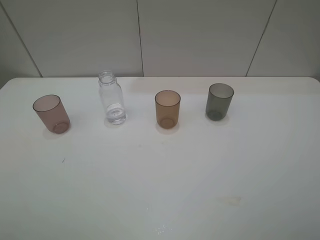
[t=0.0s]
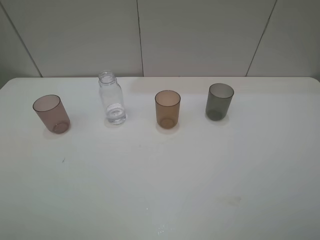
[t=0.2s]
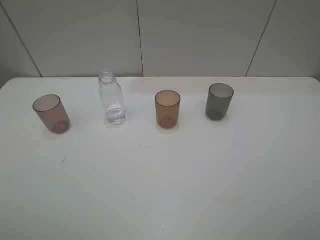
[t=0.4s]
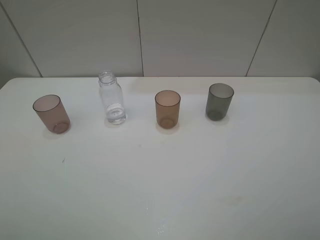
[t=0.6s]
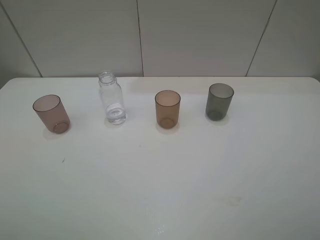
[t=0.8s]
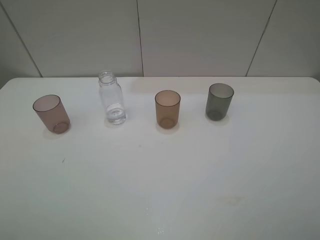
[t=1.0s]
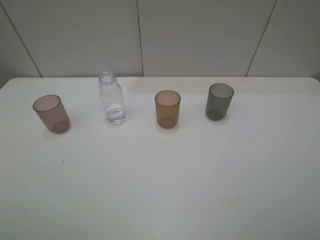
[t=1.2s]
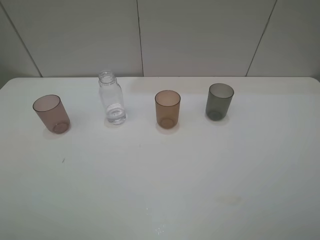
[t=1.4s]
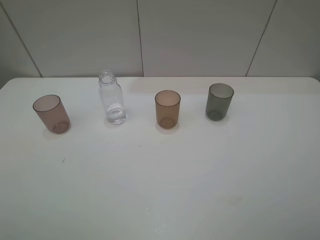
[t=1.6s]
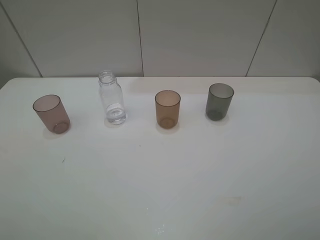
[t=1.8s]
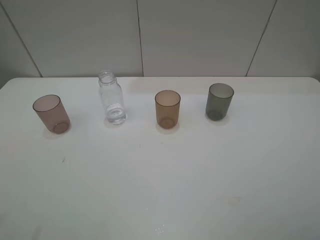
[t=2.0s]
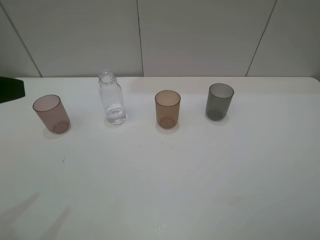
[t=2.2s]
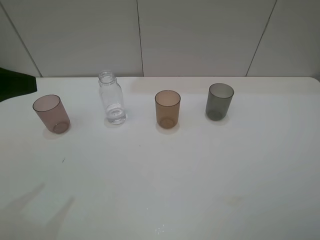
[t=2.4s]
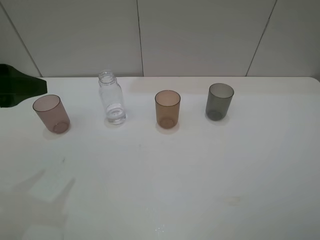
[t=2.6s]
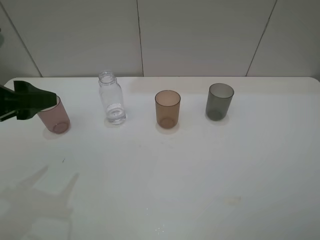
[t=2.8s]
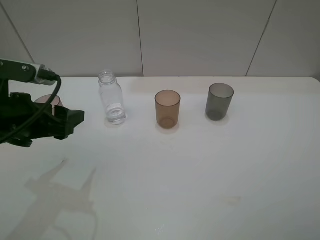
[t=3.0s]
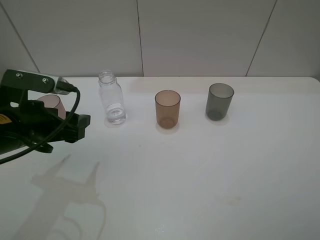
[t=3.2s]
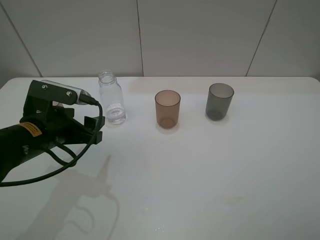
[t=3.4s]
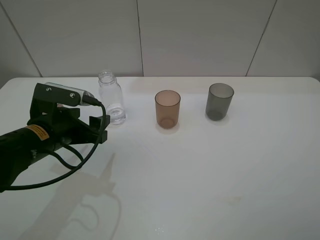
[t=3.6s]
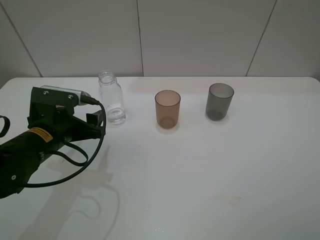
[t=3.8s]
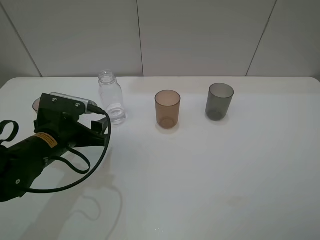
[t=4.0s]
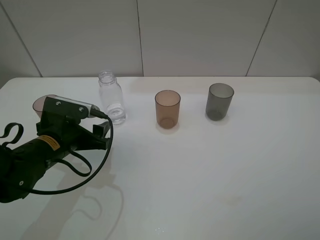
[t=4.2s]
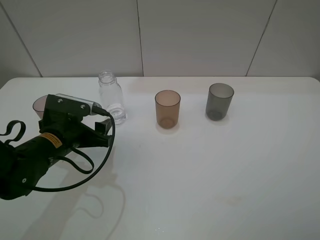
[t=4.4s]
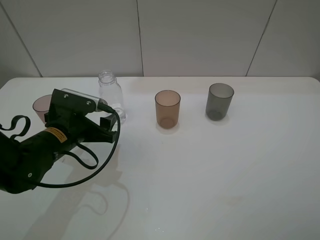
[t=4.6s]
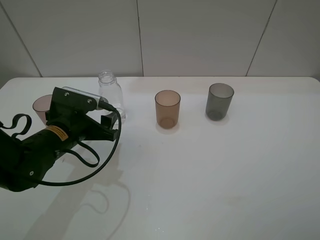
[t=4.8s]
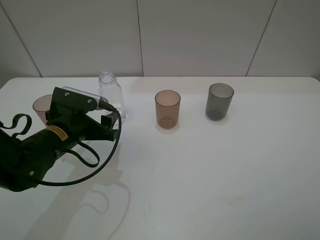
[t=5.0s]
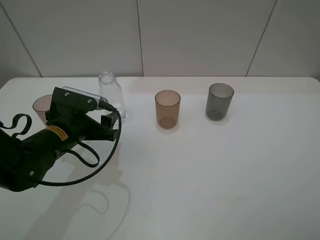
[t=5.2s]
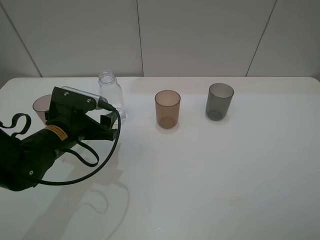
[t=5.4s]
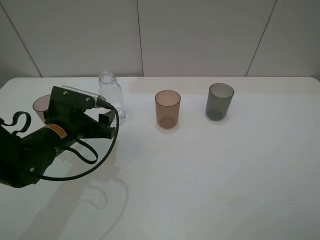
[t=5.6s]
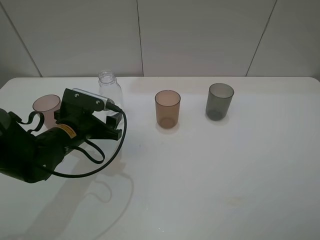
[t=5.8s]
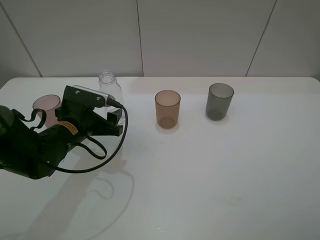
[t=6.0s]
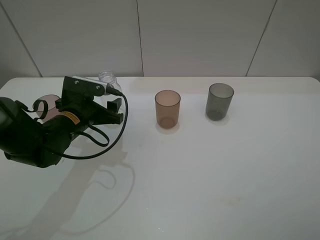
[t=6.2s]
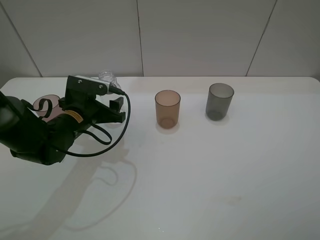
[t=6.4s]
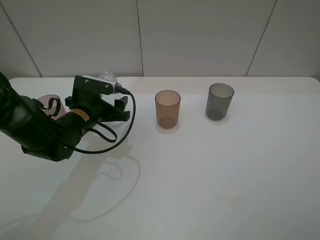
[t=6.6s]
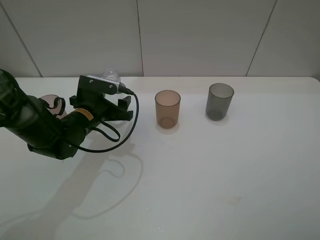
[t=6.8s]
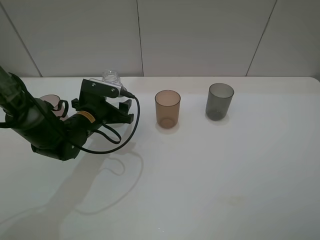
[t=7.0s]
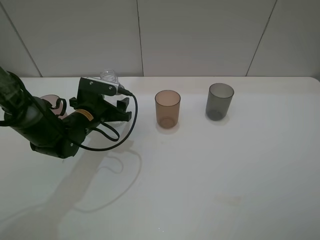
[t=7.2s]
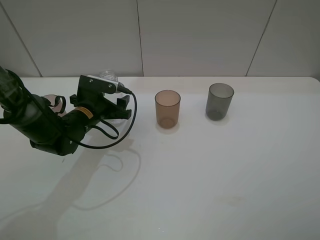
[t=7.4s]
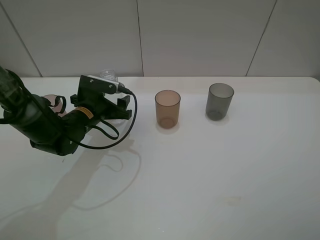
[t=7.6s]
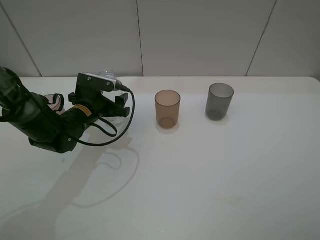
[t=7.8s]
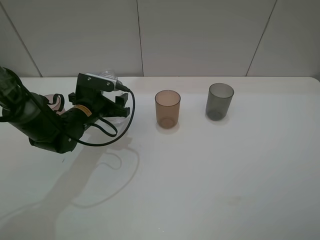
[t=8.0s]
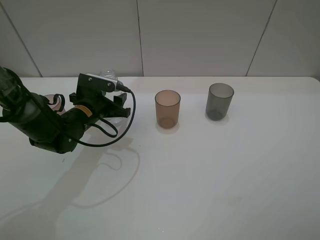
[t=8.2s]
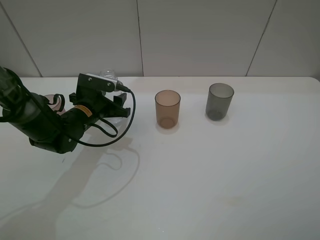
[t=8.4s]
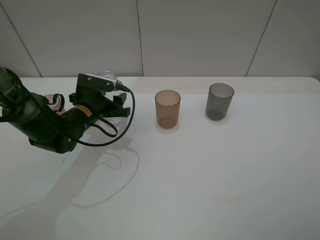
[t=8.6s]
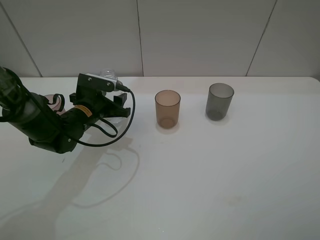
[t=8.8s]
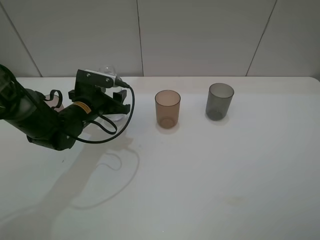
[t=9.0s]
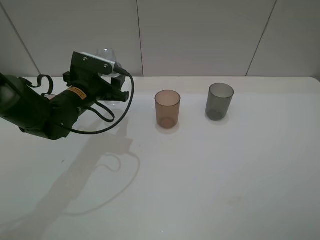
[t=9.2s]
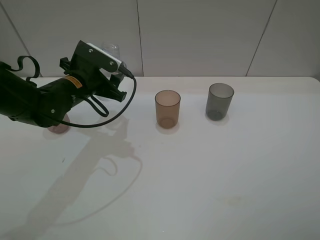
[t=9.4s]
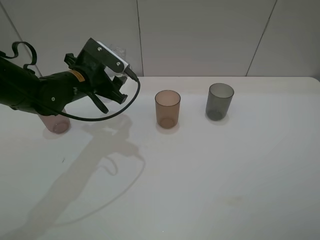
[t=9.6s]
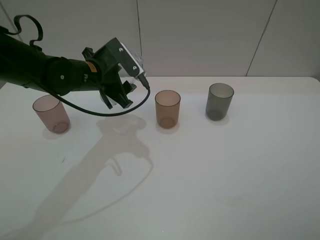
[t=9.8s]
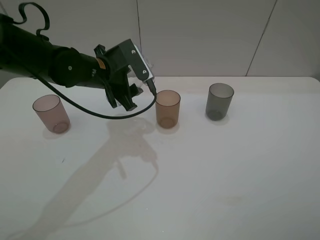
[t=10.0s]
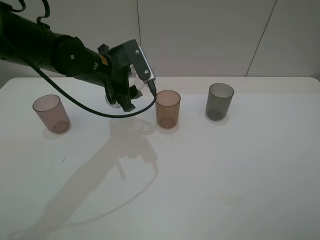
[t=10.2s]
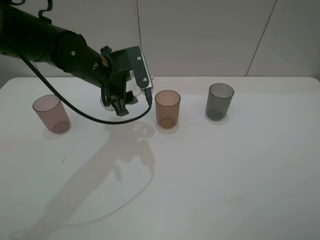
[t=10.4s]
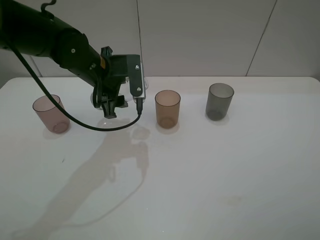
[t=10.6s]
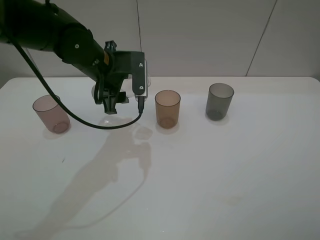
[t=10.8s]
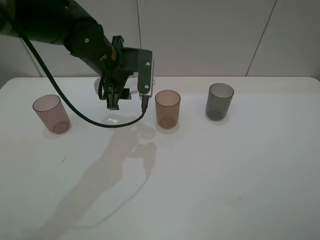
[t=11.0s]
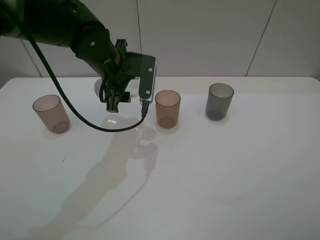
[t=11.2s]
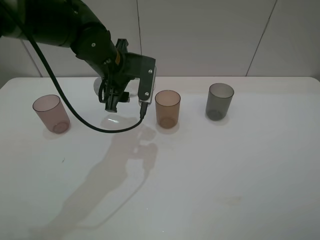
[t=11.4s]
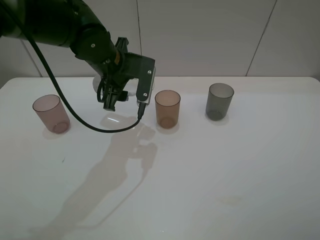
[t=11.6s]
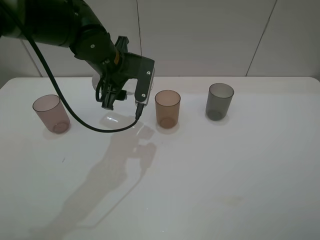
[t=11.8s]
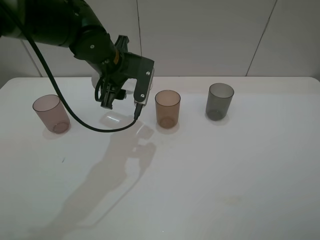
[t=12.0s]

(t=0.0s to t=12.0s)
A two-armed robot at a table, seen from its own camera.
Task of the whole recording: pick up the bottle filled with water and pour water into the middle cup of the three cups.
Step, t=0.0s - t=7.6s: Grasp the transparent bottle with the left gripper.
t=1.6s - t=3.0s: The left gripper travels forward, downward and to the right by about 20 cm.
t=3.0s - t=4.4s: The left gripper goes roughly 10 cm downward.
t=4.4s - t=6.0s: There are only small adjustments of the grippers.
t=6.0s - t=7.6s: The left gripper goes some 5 cm forward.
t=7.6s - t=9.0s: The left gripper closes up.
t=9.0s - t=10.4s: The left gripper is displaced upward and to the right by some 10 cm.

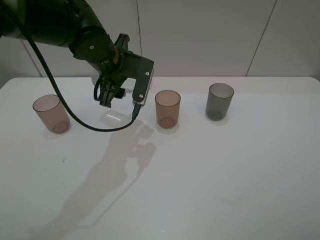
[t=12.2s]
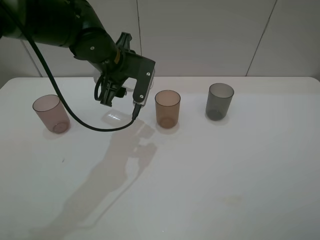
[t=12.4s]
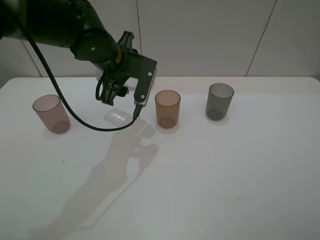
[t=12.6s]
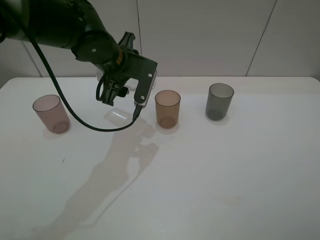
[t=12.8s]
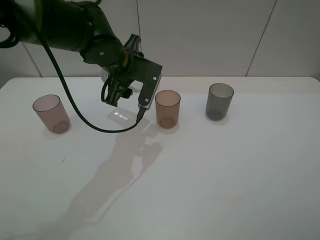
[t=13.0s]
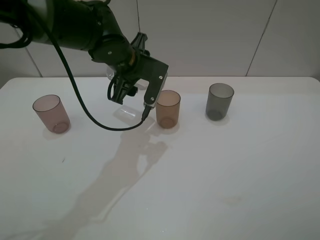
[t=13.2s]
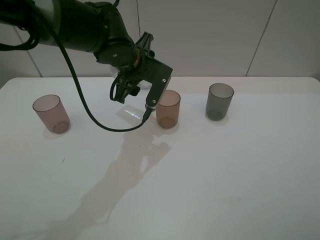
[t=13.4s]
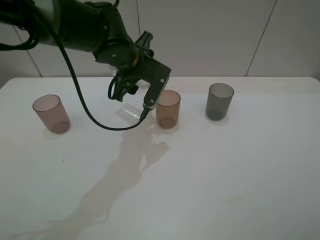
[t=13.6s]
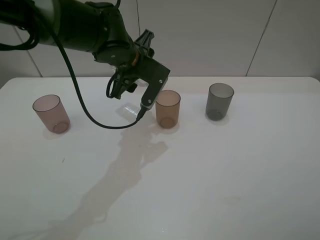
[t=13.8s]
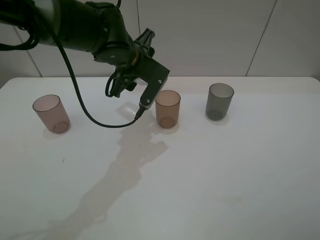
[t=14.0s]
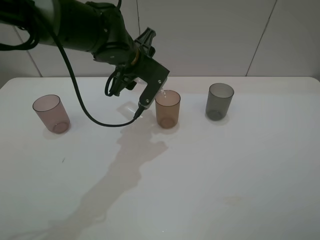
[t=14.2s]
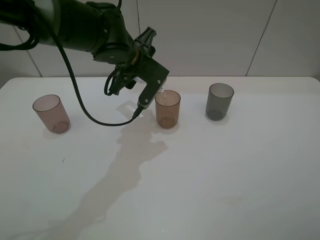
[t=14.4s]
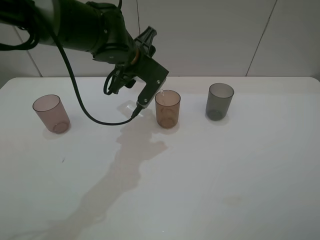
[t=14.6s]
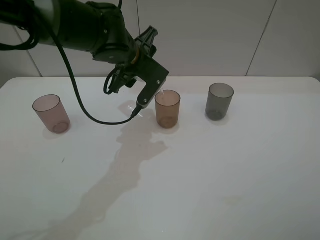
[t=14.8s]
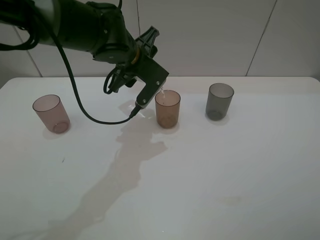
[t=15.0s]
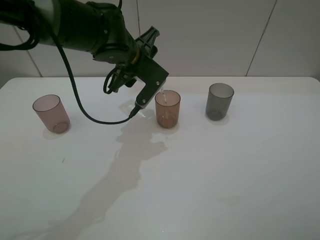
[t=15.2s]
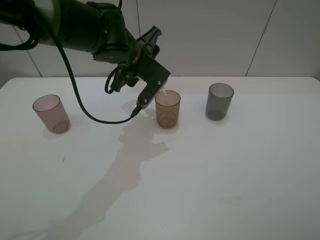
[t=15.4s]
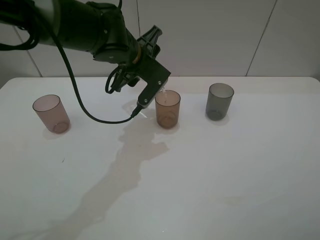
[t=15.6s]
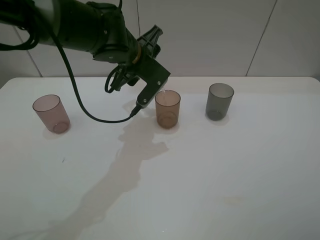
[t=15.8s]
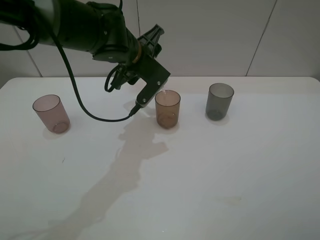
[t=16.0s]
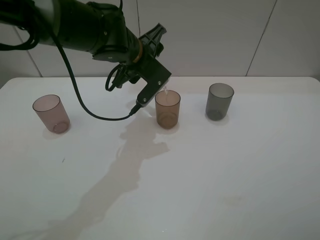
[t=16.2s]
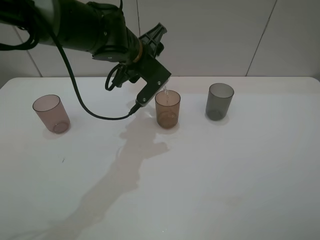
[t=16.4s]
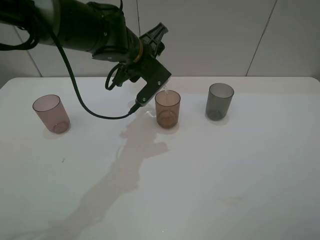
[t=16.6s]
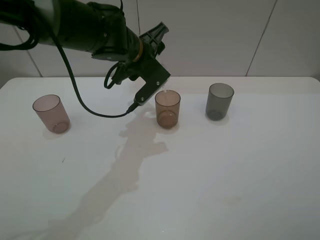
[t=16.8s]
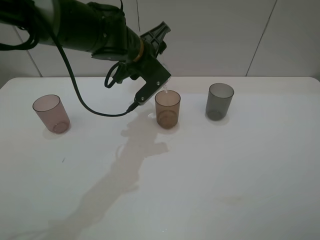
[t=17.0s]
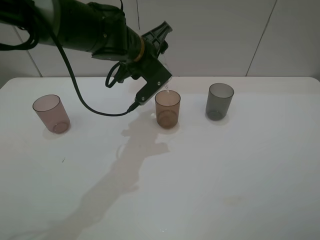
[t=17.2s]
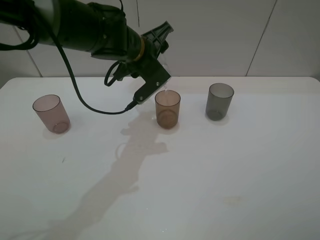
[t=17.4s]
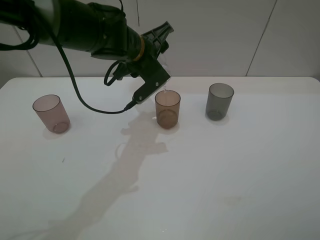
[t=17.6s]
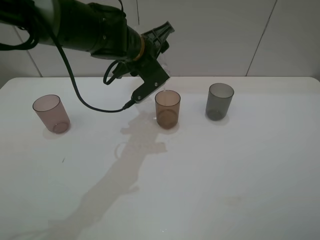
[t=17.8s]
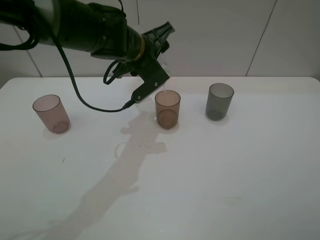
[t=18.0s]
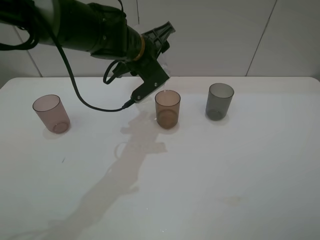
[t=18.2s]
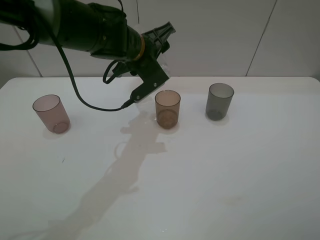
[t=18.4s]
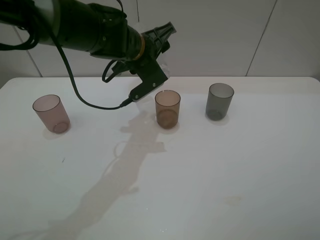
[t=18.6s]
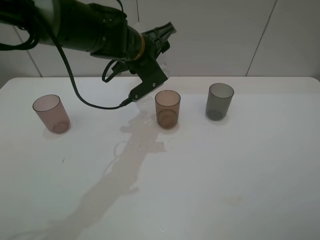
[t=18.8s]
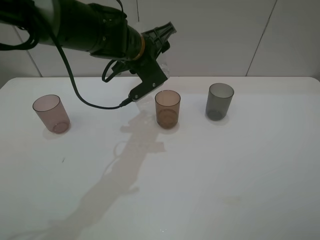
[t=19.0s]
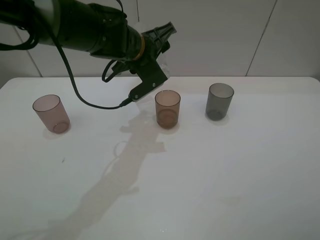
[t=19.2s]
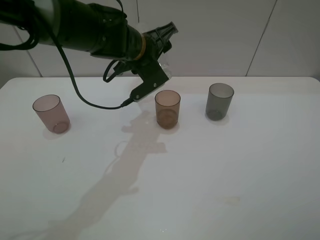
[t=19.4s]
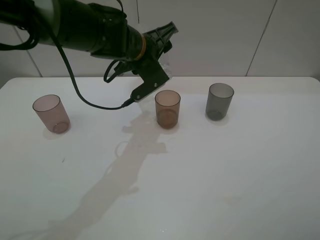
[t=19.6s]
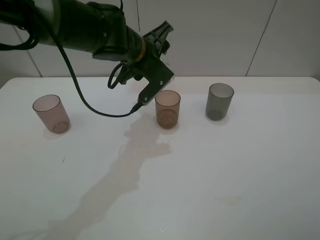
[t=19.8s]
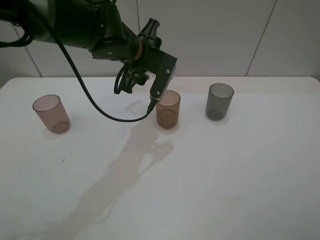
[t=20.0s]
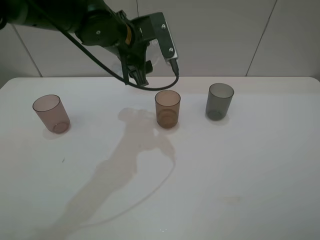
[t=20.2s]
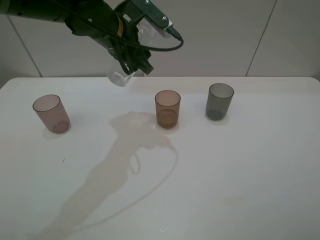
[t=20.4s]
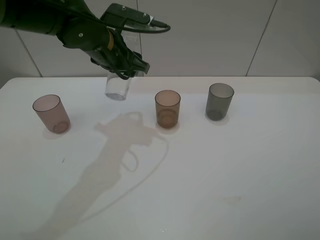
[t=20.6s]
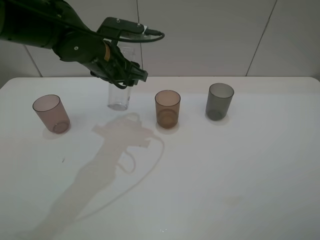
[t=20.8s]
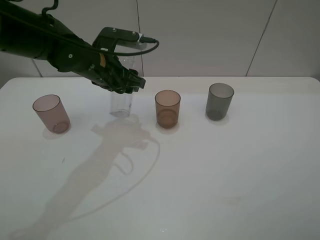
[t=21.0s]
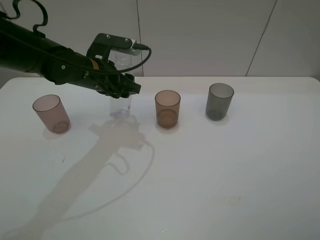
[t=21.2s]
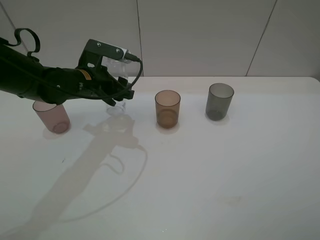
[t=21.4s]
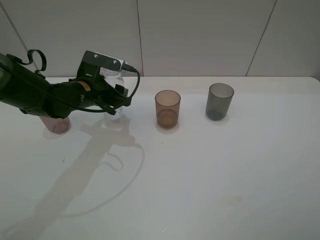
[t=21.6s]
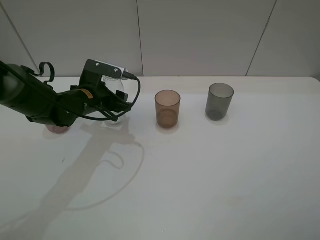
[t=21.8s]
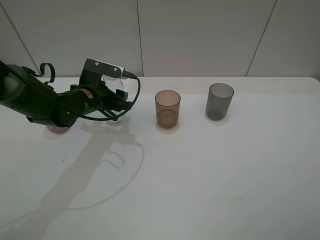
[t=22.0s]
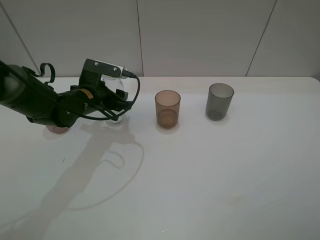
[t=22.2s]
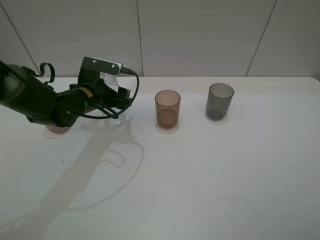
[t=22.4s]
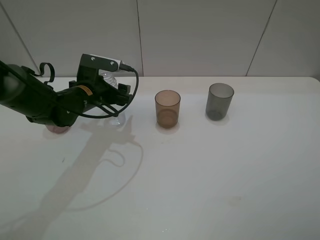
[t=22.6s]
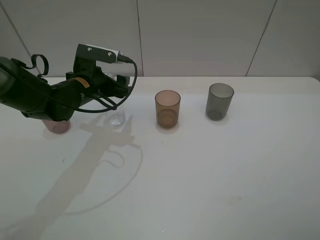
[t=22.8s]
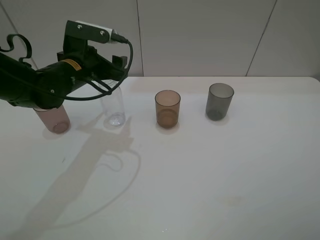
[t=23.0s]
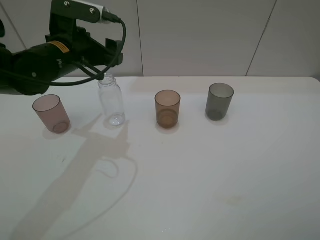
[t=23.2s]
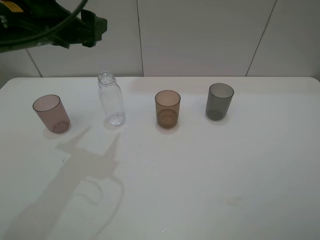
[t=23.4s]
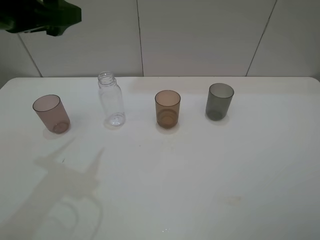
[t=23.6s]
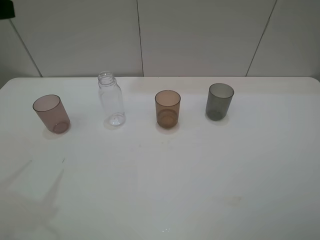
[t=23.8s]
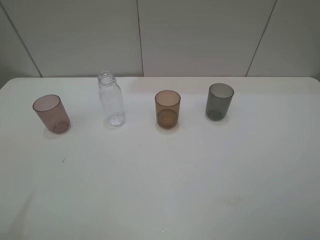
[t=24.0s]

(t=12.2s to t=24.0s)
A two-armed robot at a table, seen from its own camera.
Task of the whole recording: pick up the bottle filled with water and pour water into the middle cup of the three cups.
Step, t=12.2s - t=14.2s: Pour water from transparent bottle to brown cup with the left gripper.
t=12.2s - t=13.6s: The grippers move only a little.
t=13.6s - t=15.2s: The grippers stay close to where they were, moving slightly.
t=15.2s - t=16.6s: The grippers stay close to where they were, moving slightly.
t=16.6s - t=18.2s: The grippers make only small movements.
t=18.2s - t=19.6s: Both grippers stay put.
t=19.6s - t=21.0s: The left gripper is displaced to the left by some 10 cm.
t=21.0s - t=22.6s: The left gripper is displaced downward by approximately 5 cm, and opens up.
t=22.6s - t=24.0s: The left gripper is displaced upward, backward and to the left by roughly 35 cm.
